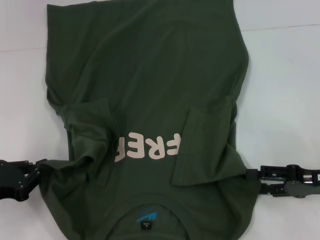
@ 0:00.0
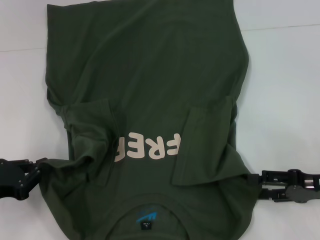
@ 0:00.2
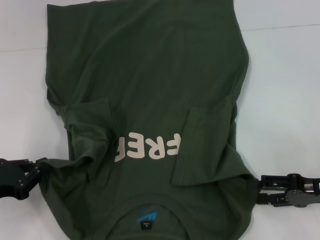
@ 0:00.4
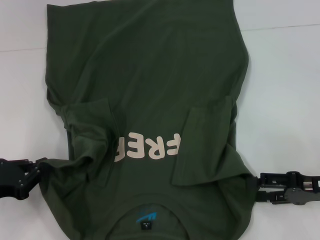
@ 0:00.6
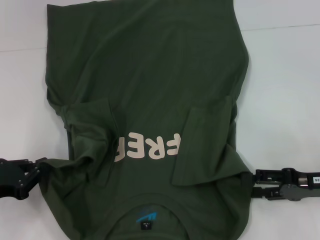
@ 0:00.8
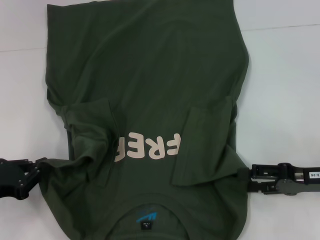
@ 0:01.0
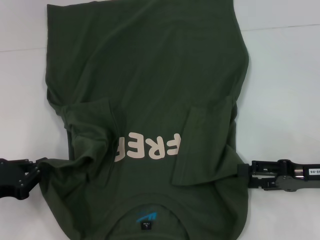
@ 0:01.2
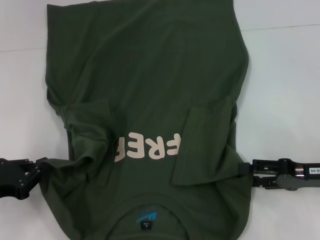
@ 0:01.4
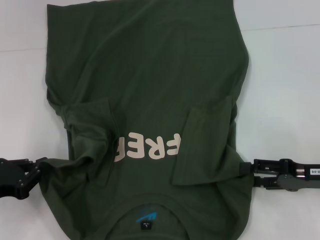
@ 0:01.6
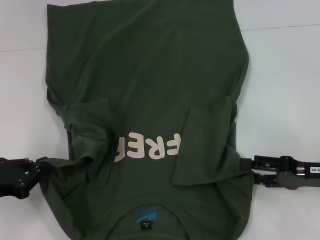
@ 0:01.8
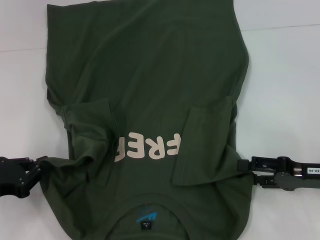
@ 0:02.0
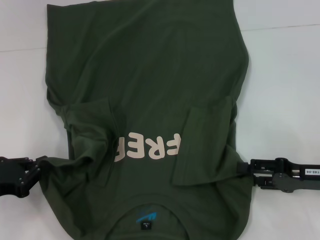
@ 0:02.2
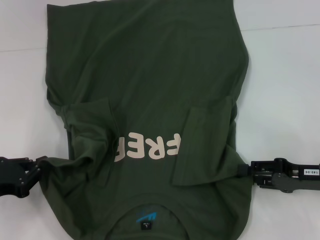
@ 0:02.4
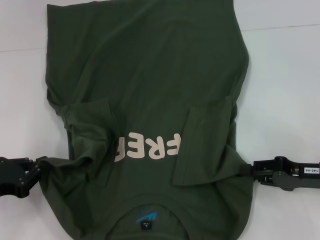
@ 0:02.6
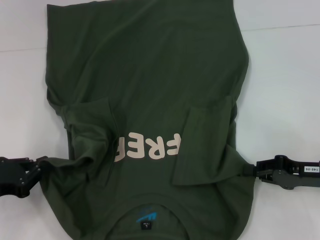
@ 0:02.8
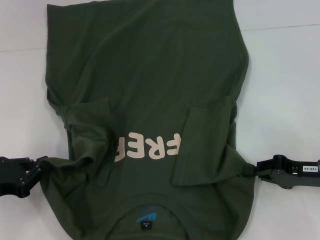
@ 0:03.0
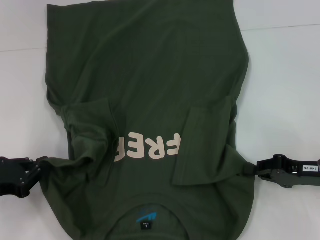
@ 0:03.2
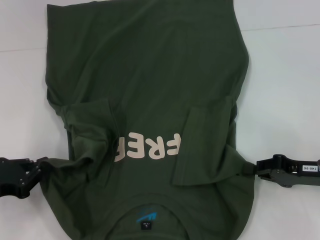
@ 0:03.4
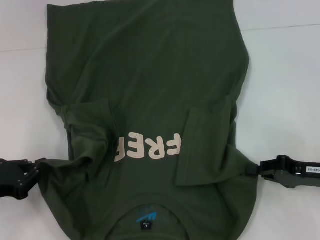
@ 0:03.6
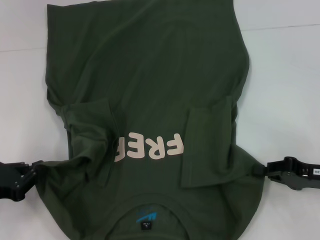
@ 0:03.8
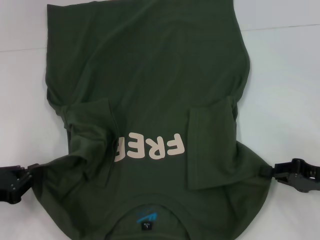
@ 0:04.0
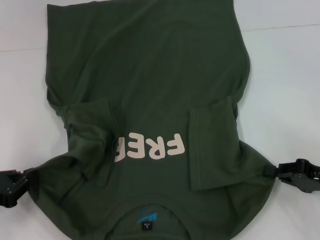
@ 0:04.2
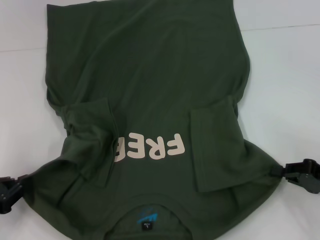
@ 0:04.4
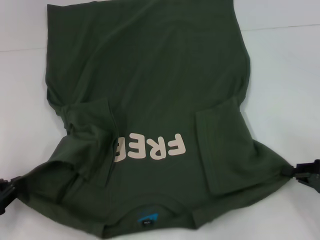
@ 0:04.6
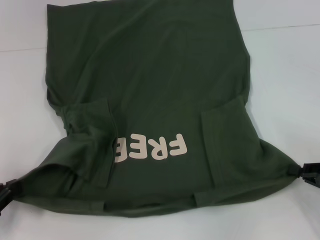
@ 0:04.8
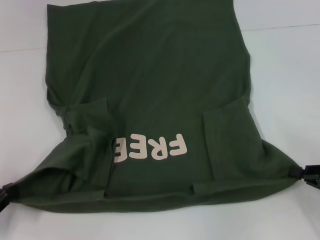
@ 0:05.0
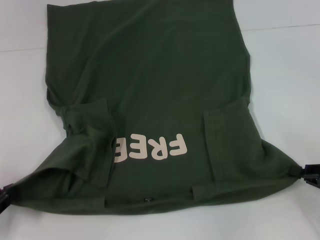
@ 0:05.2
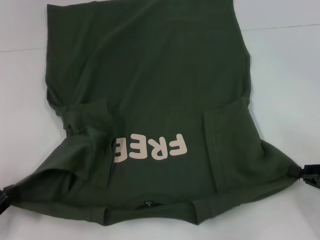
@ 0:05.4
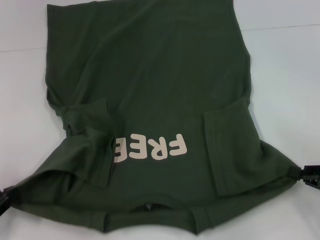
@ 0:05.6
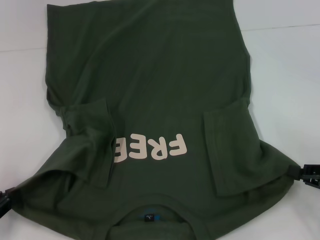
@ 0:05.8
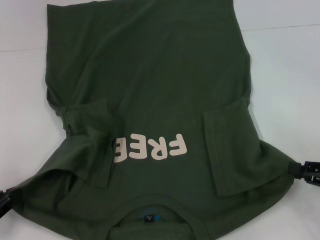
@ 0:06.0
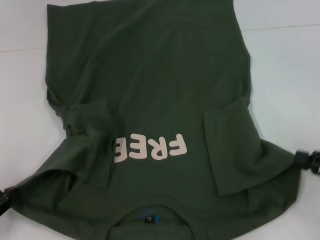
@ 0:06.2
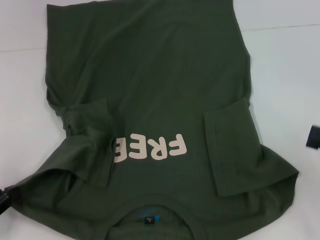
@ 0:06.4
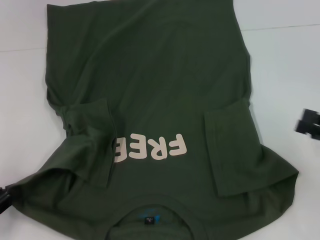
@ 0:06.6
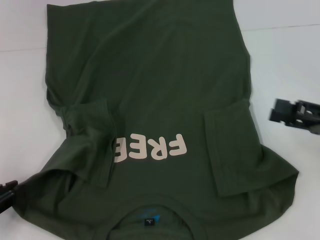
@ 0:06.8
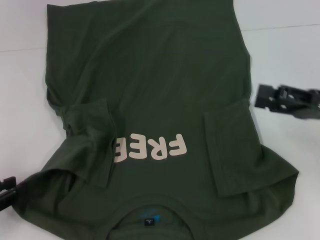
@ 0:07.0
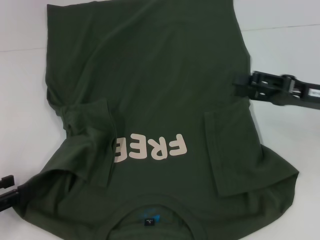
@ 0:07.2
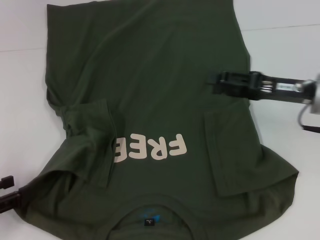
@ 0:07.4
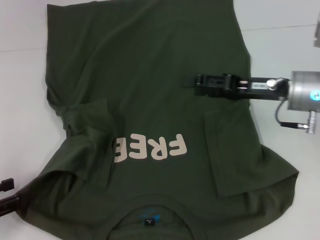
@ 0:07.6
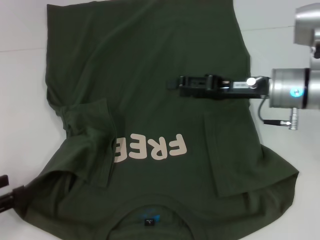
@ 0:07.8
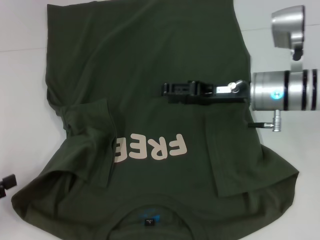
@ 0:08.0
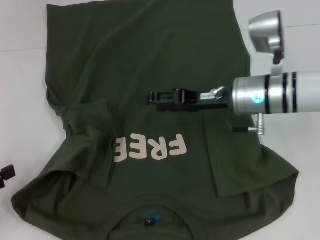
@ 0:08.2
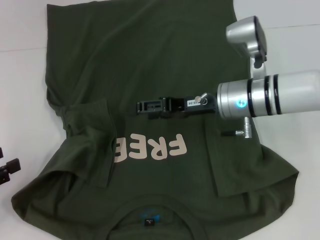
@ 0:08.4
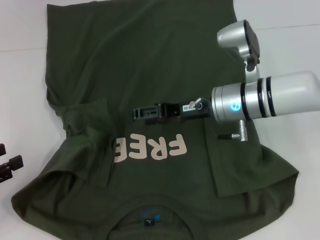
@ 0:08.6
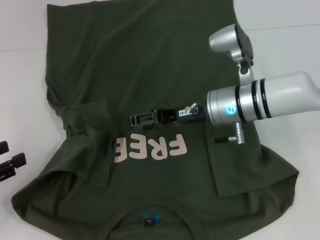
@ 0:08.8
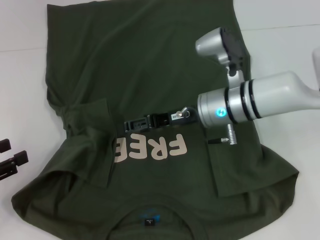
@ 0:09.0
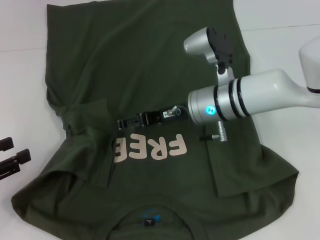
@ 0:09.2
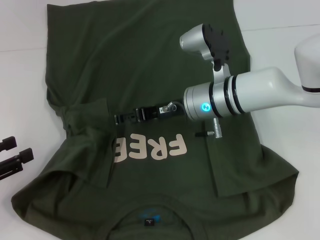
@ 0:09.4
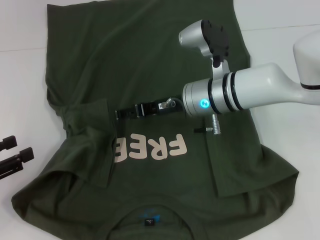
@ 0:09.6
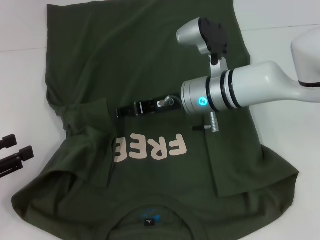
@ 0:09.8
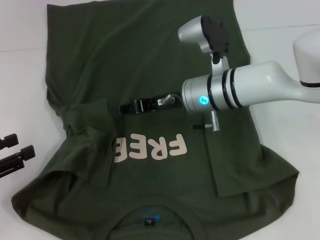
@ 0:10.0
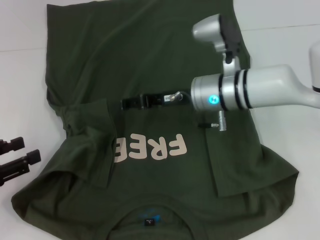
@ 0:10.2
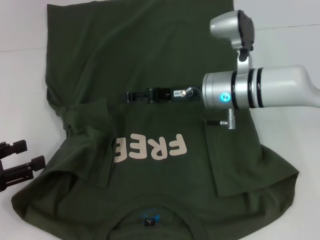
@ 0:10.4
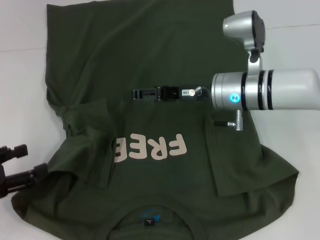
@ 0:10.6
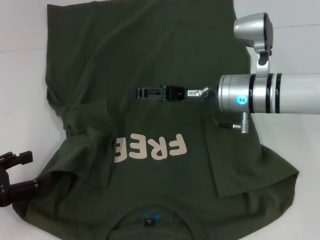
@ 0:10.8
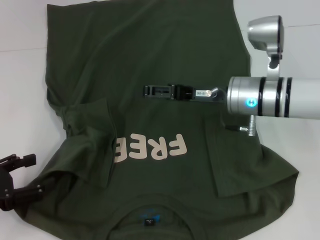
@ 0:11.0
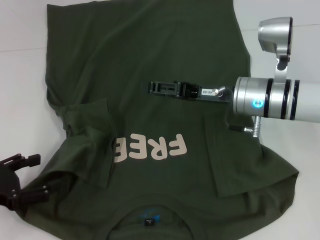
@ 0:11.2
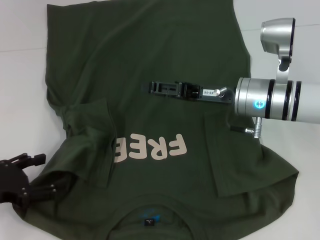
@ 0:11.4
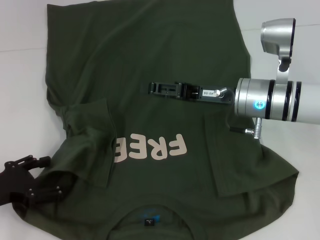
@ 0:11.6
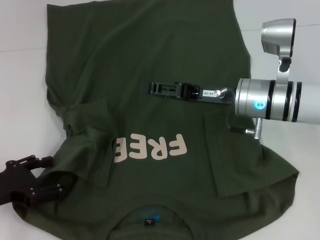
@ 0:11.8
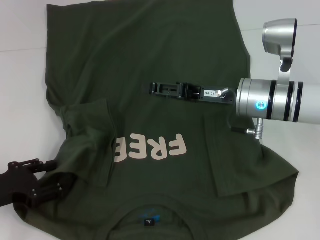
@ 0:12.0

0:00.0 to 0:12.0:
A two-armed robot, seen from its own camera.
Step, 0:00.0 to 0:03.0: Grab the bottom right corner with your right hand.
0:00.0 to 0:01.6: The grippers make only small movements.
0:01.6 to 0:03.0: The right gripper closes.
0:03.0 to 0:04.4: There are only small adjustments of the grippers.
0:04.4 to 0:06.0: There are only small adjustments of the grippers.
0:06.0 to 0:07.6: The right gripper goes some 20 cm forward, to the left and upward, and opens its fingers. Meanwhile the left gripper opens its fingers.
0:07.6 to 0:09.0: The right gripper shifts approximately 10 cm to the left.
0:09.0 to 0:10.4: The grippers stay close to where they were, moving slightly.
0:10.4 to 0:12.0: The right gripper moves some 5 cm.

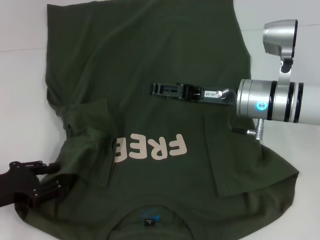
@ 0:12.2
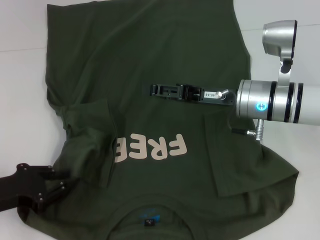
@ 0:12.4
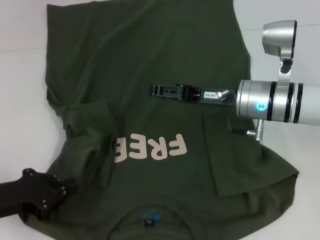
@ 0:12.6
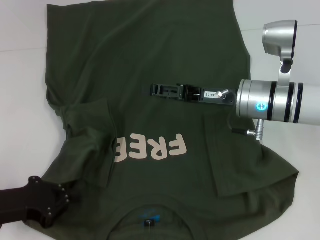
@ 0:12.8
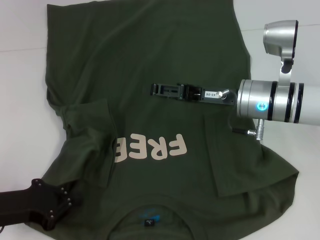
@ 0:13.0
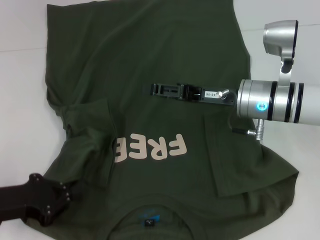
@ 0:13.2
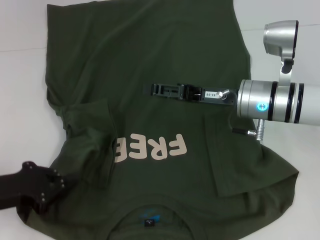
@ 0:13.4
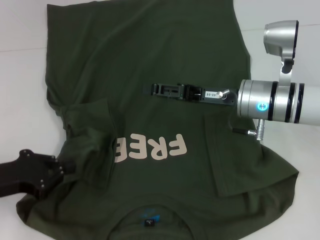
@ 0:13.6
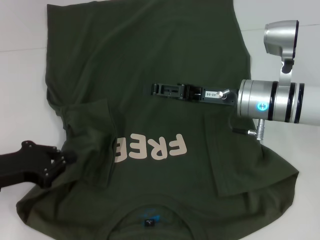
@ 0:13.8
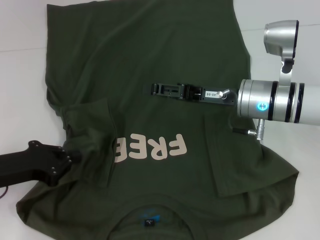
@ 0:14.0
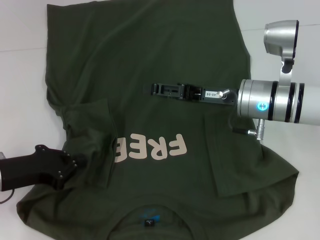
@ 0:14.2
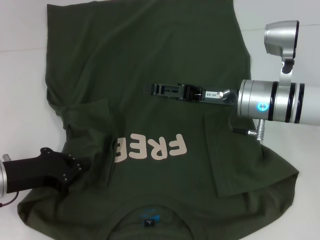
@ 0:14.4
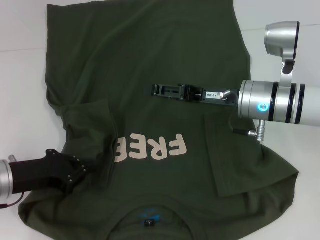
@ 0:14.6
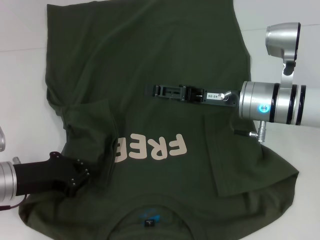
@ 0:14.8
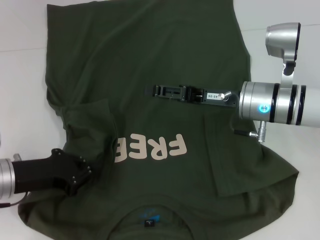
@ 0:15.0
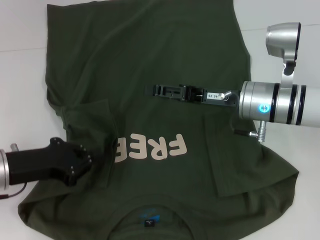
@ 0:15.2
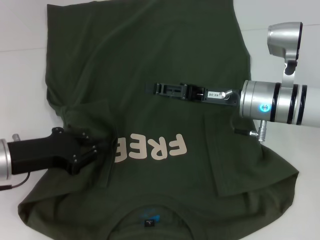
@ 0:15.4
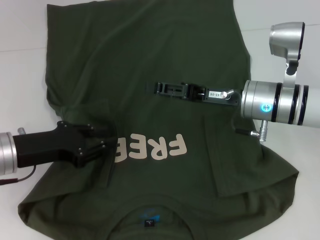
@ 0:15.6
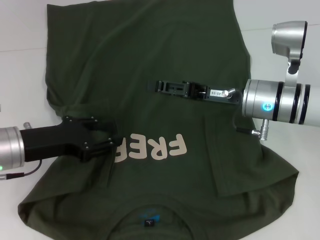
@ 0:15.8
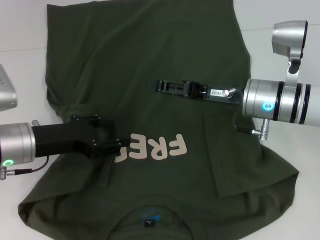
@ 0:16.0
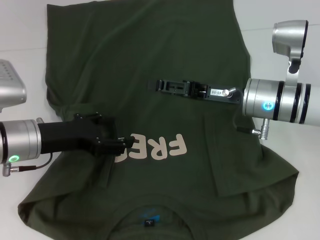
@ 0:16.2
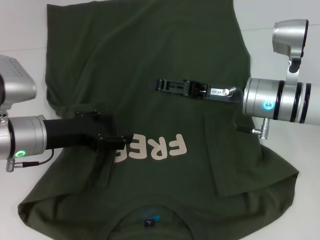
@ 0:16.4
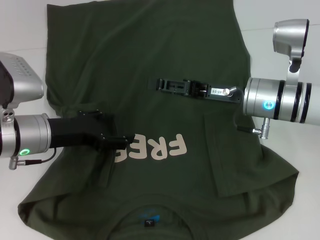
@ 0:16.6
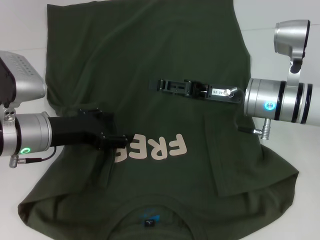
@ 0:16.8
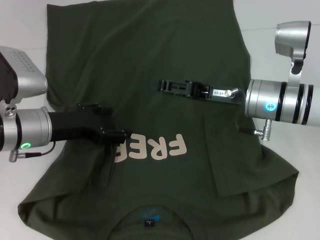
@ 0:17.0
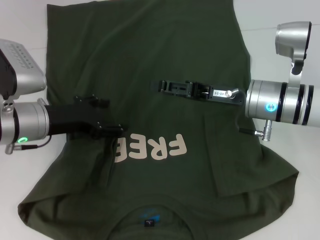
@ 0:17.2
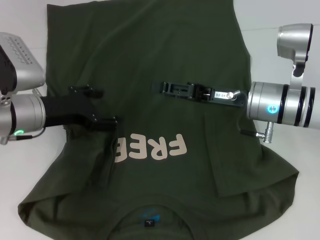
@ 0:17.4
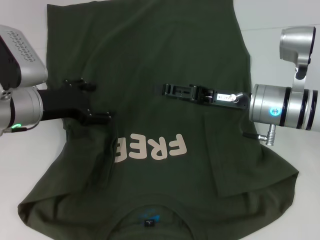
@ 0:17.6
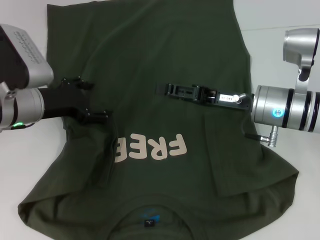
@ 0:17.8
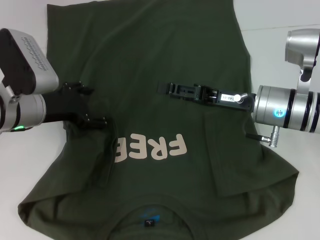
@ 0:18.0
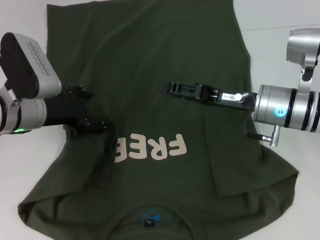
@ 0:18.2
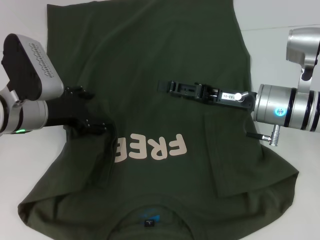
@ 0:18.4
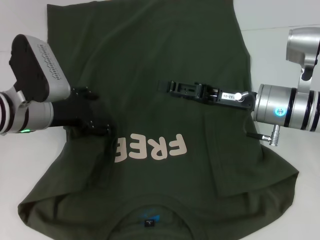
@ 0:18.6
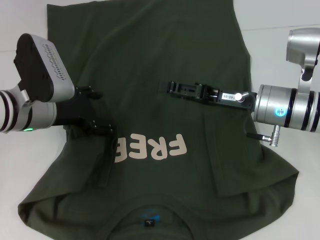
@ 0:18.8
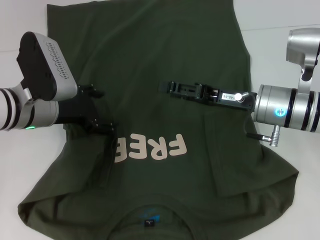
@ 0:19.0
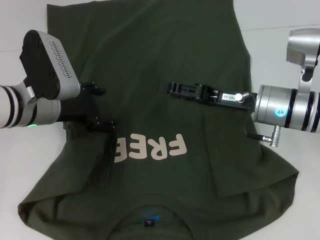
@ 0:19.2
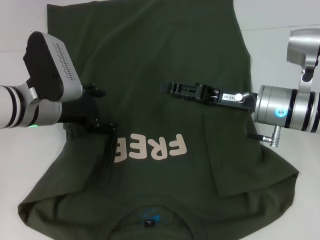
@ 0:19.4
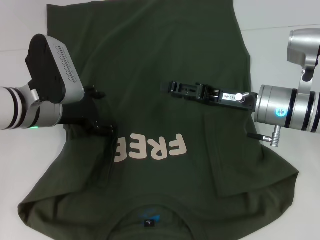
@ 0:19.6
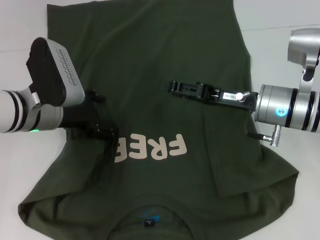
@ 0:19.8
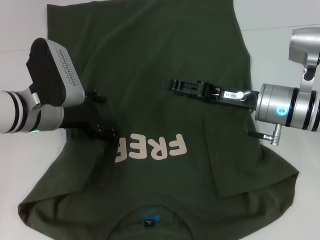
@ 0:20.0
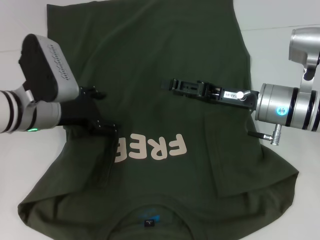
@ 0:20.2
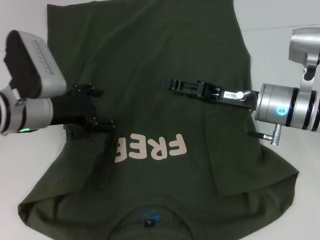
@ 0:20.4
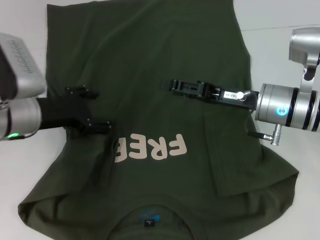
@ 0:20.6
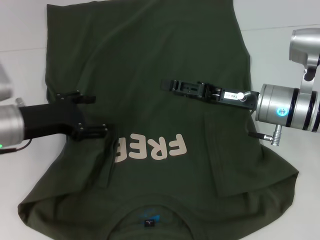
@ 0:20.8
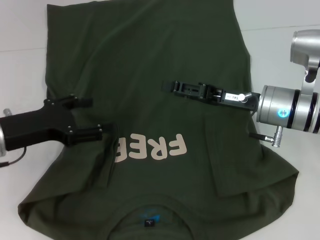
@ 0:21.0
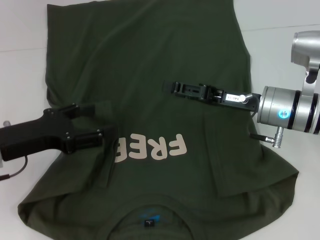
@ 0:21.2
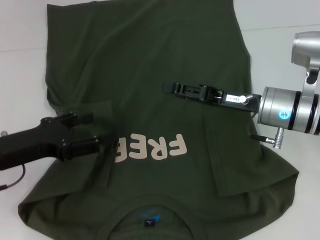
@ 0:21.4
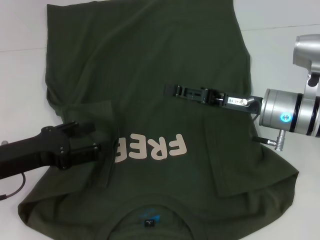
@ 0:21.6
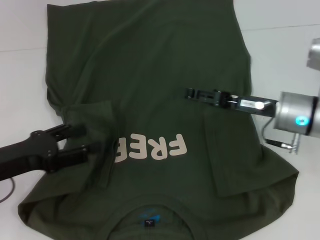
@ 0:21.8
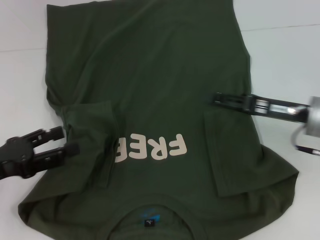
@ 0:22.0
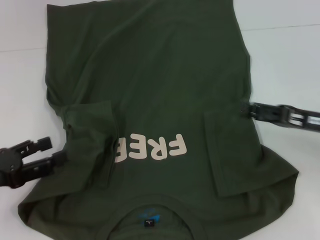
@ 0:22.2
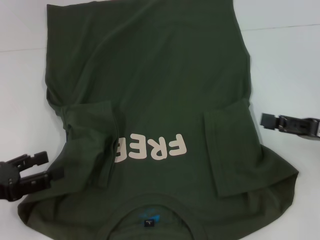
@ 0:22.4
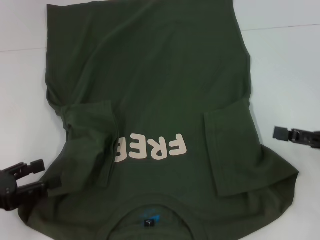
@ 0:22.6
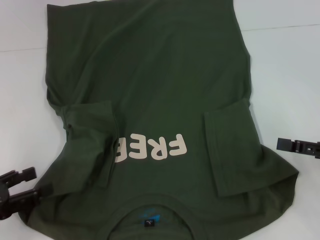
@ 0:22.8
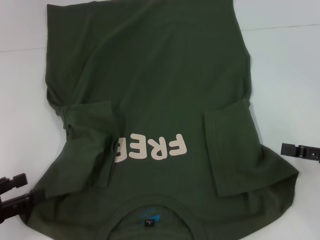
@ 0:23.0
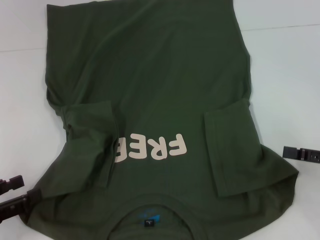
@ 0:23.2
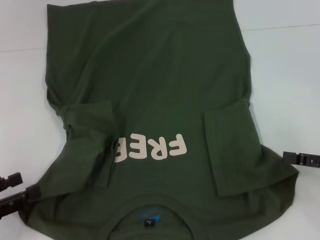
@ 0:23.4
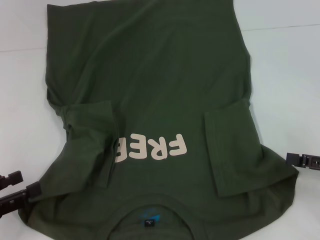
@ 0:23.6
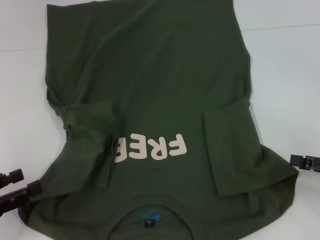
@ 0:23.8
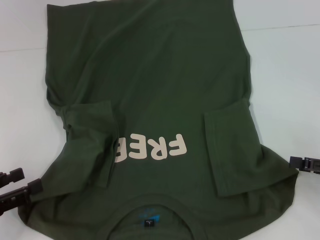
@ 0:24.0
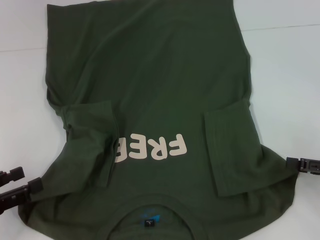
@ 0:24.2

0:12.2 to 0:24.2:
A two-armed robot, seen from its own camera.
0:12.2 to 0:13.8: The left gripper closes up.
0:13.8 to 0:15.2: The grippers move only a little.
0:15.2 to 0:16.6: The left gripper travels to the right by approximately 5 cm, and opens up.
0:18.2 to 0:19.8: There are only small adjustments of the grippers.
0:19.8 to 0:21.2: The left gripper shifts about 10 cm backward and to the left.
0:21.2 to 0:22.6: The right gripper moves to the right and backward, about 20 cm, while the left gripper goes roughly 10 cm backward and to the left.
0:22.6 to 0:24.2: The grippers move only a little.
